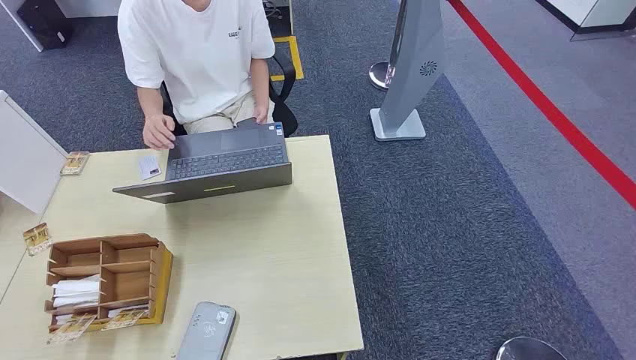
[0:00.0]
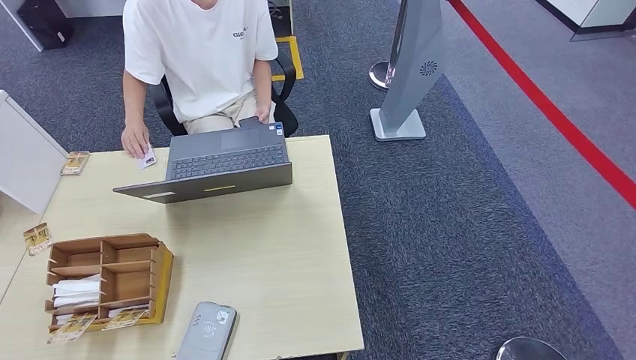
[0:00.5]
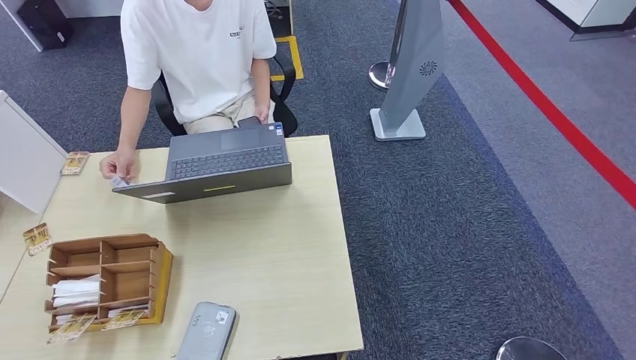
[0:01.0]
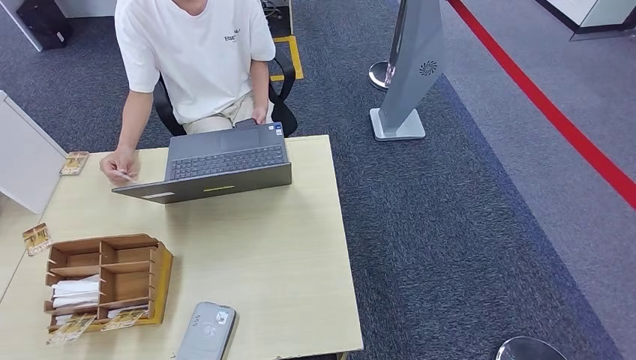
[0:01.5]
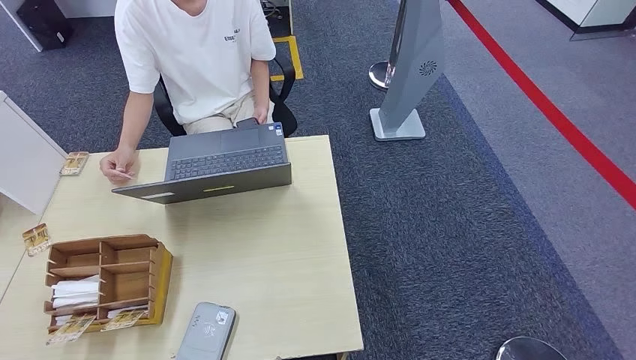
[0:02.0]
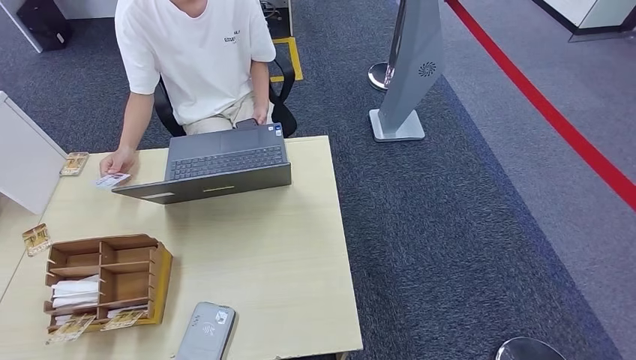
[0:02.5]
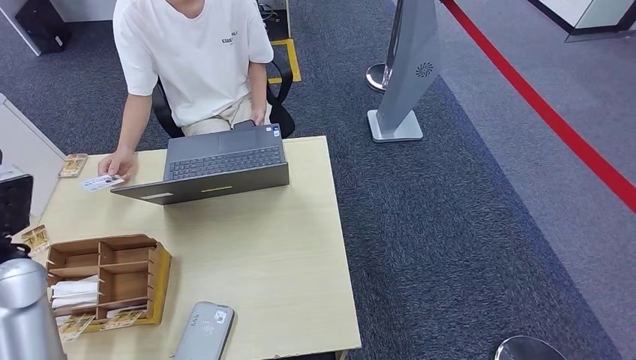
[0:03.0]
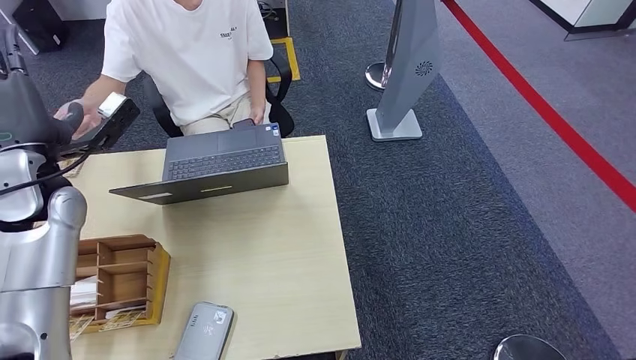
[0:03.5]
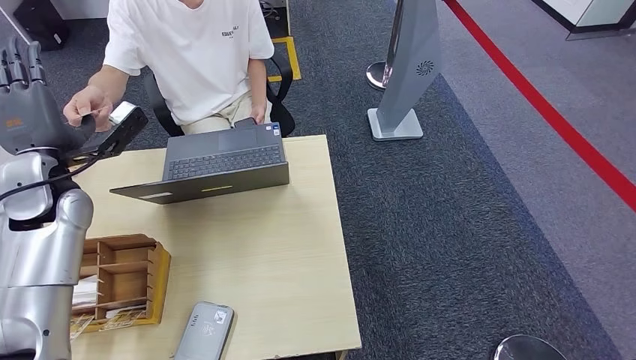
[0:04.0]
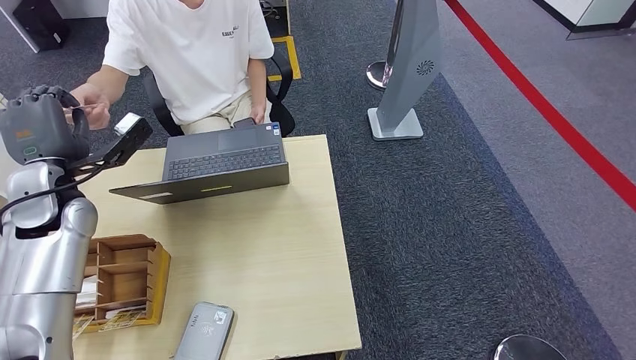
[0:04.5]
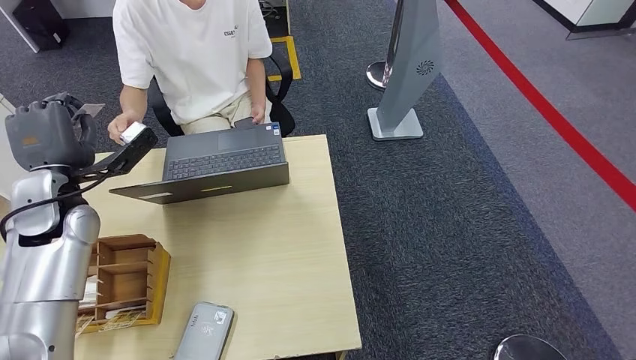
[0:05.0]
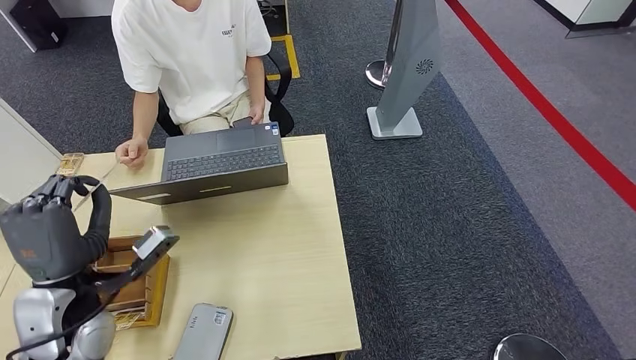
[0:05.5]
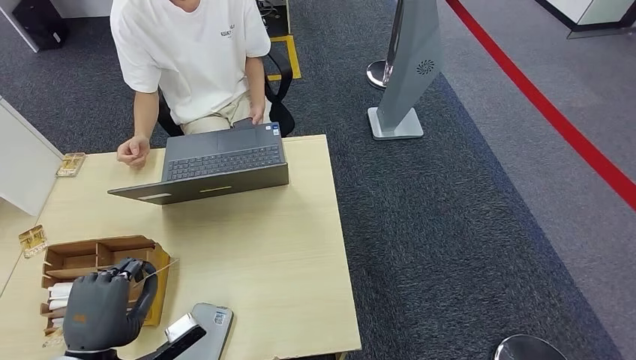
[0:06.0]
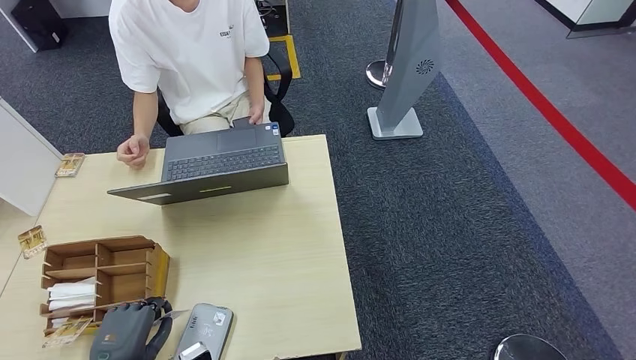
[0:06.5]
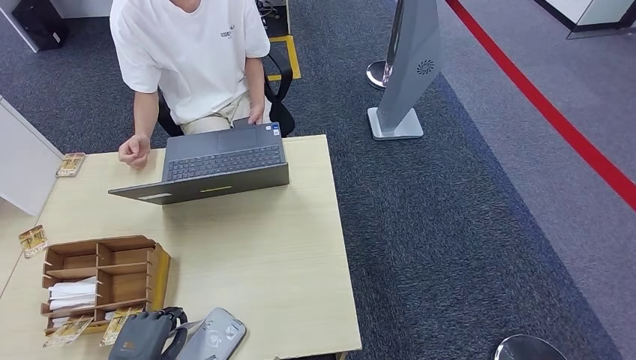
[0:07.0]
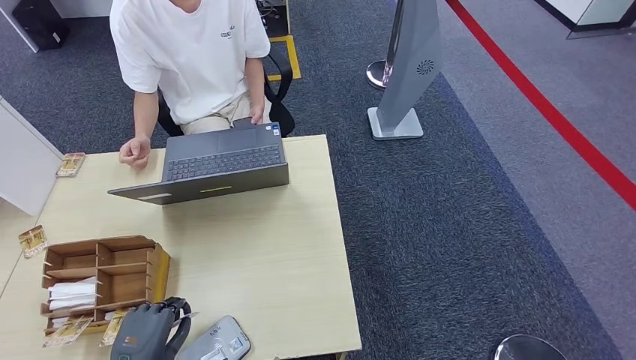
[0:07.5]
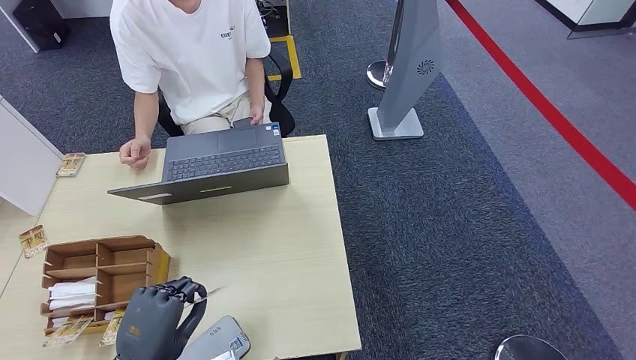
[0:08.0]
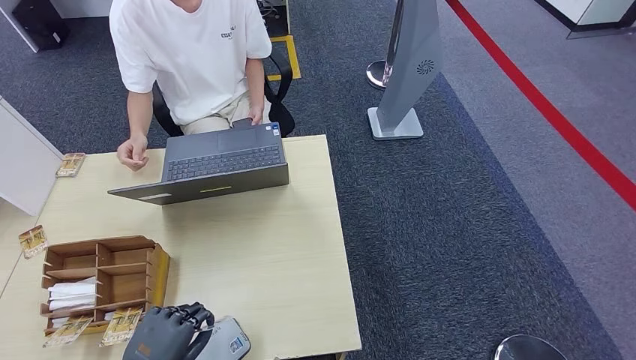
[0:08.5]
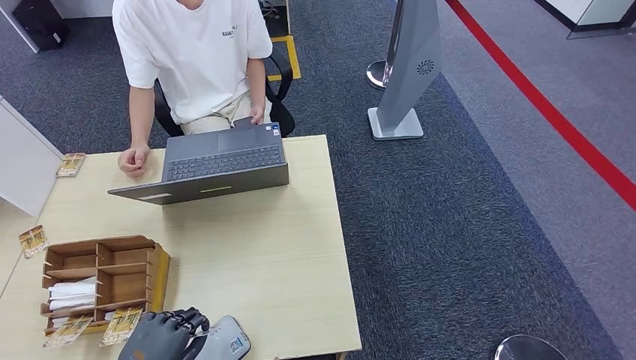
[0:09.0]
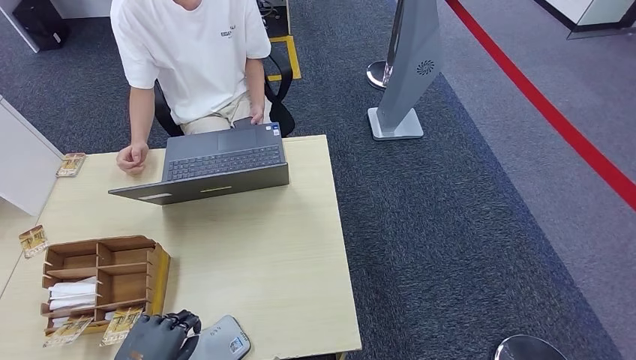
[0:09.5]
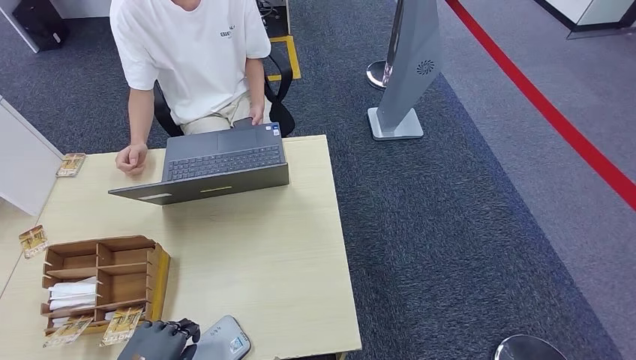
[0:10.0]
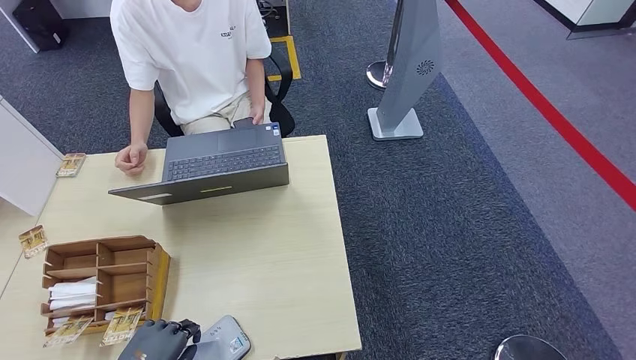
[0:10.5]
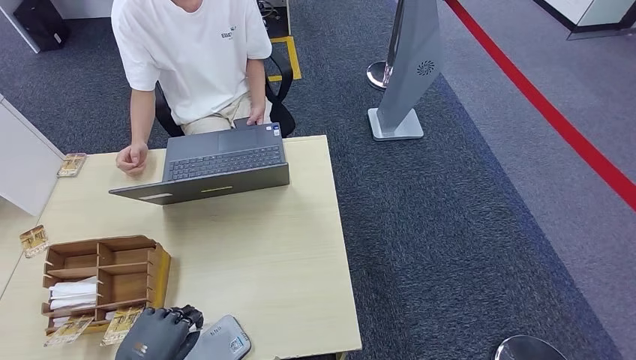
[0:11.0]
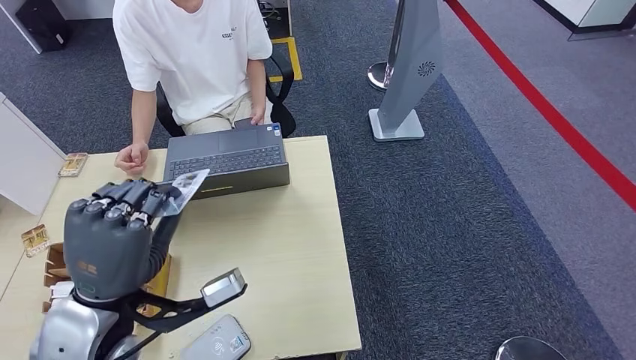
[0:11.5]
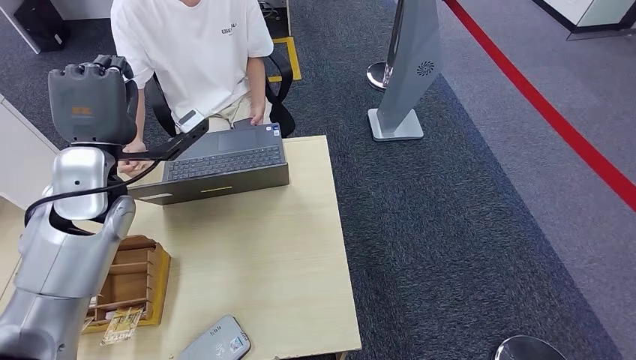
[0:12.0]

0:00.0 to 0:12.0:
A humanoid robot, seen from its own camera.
Step, 0:00.0 to 0:05.0: Take the ID card from the person's hand.
Step, 0:05.5 to 0:09.0: Place the ID card on the card reader.
0:02.0 to 0:04.0: The left hand goes roughly 50 cm forward and upward.
0:04.0 to 0:06.0: The left hand shifts roughly 30 cm backward and downward.
0:08.0 to 0:10.0: The left hand ends up approximately 5 cm from where it was.
0:10.0 to 0:12.0: The left hand moves forward and upward, about 35 cm.

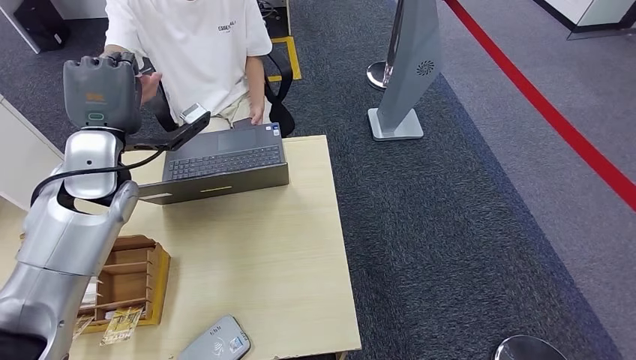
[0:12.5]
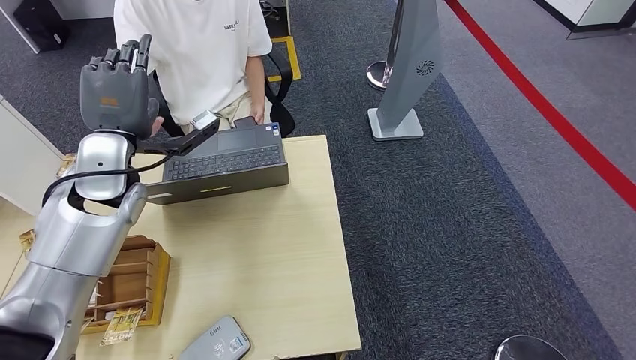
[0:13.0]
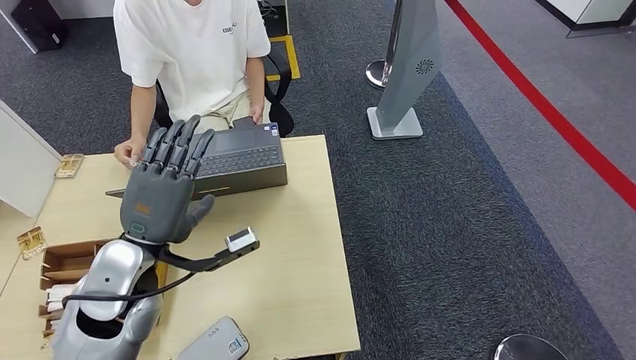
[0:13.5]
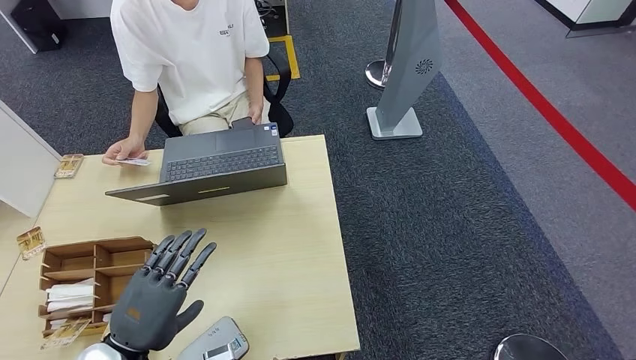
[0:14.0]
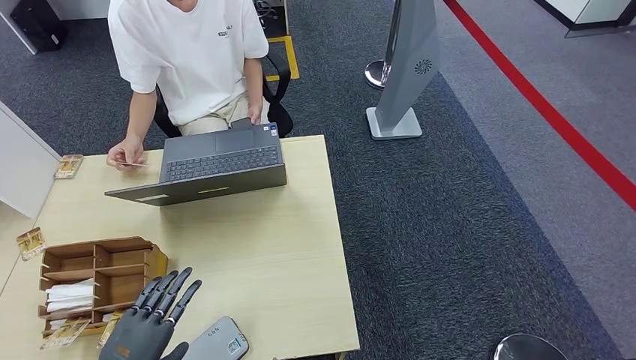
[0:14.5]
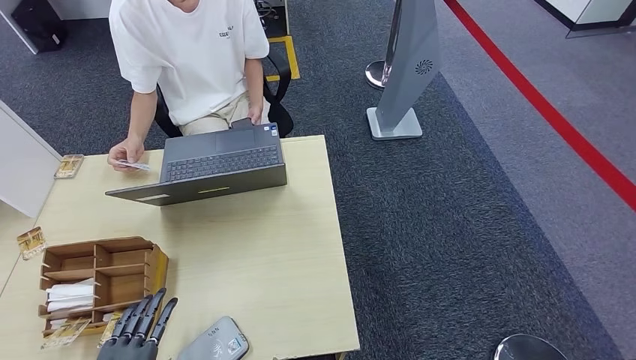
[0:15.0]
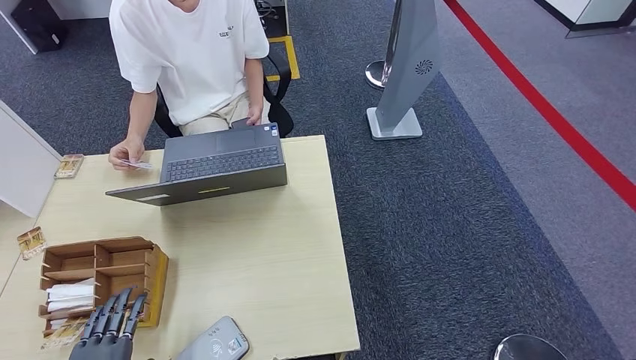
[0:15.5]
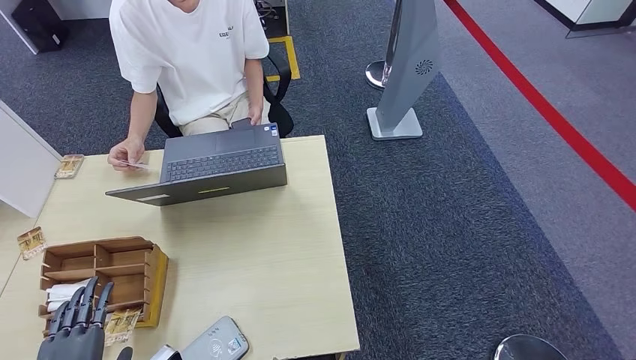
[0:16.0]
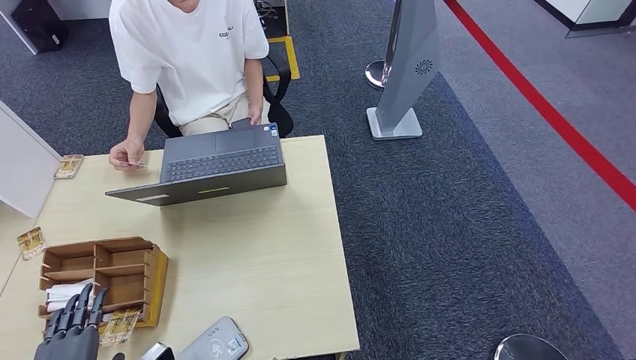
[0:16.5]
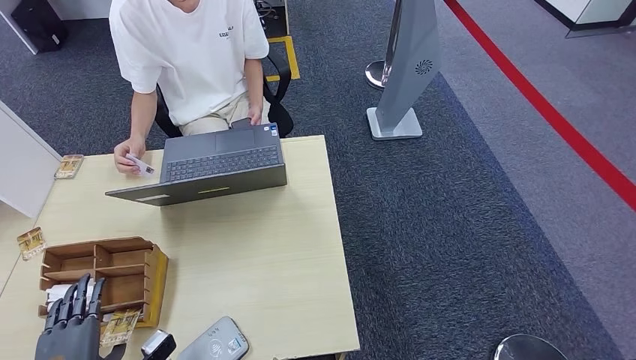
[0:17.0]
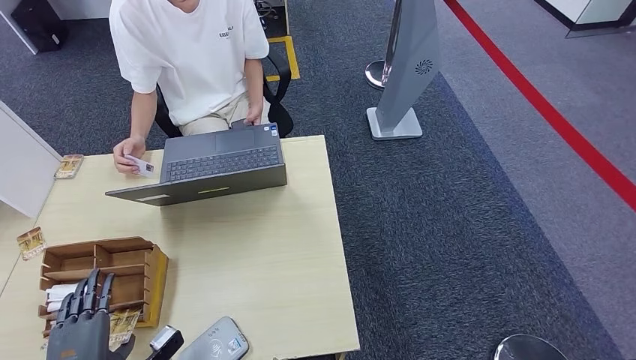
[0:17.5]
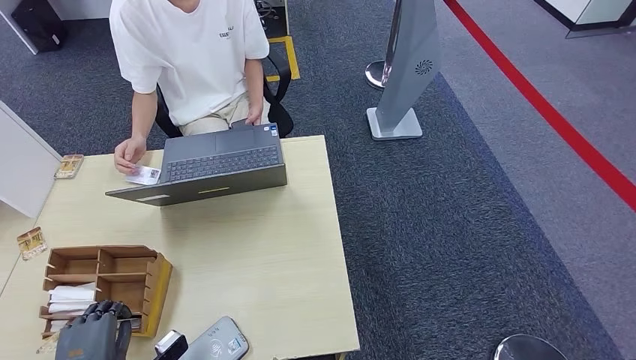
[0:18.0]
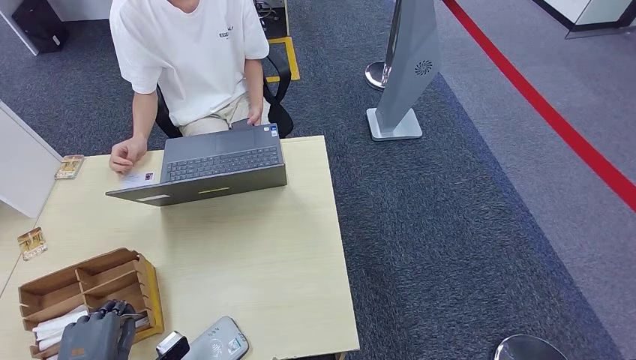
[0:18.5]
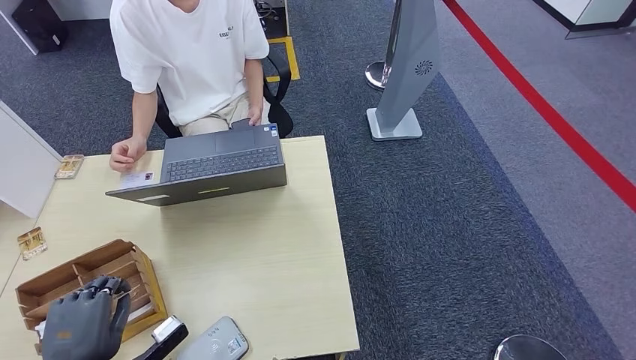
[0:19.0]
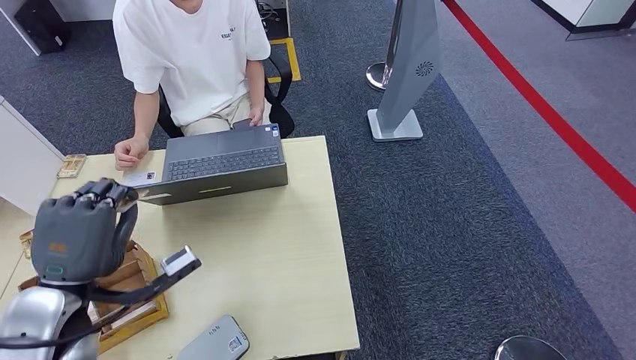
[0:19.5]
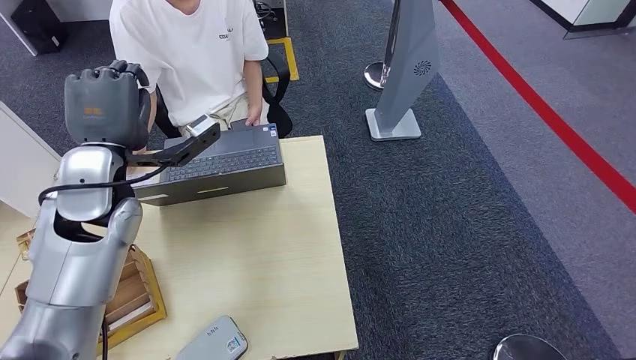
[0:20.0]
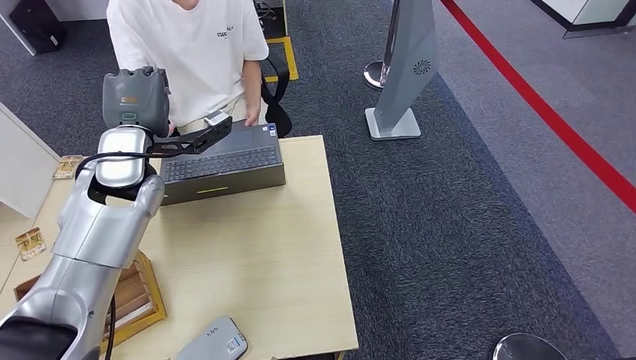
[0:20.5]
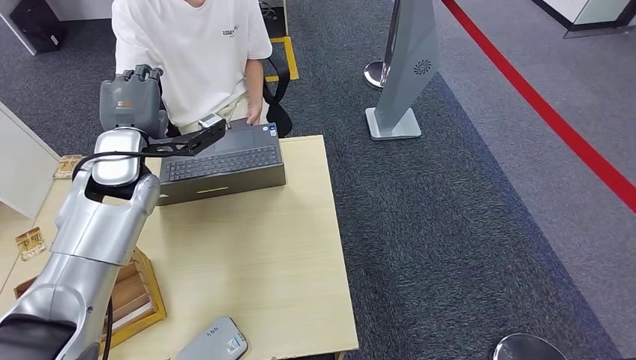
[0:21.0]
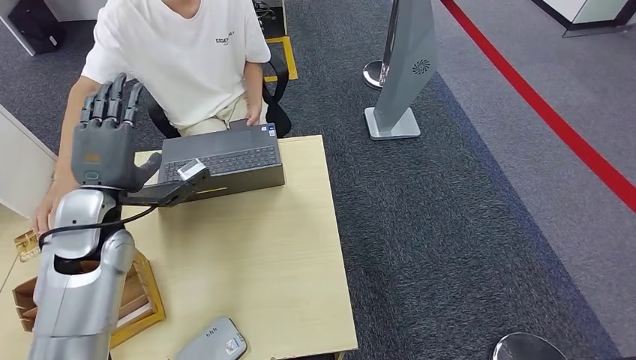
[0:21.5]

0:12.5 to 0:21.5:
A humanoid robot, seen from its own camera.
Step, 0:14.0 to 0:18.5: Pick up the room key from the key card box.
Step, 0:19.0 to 0:21.5: Hand the room key to the person.
0:12.5 to 0:14.5: The left hand heads backward and downward, covering some 35 cm.
0:17.0 to 0:19.5: The left hand is displaced upward and forward by roughly 20 cm.
0:19.5 to 0:21.5: The left hand goes roughly 15 cm forward.
